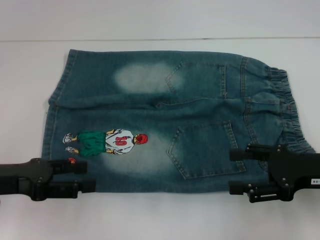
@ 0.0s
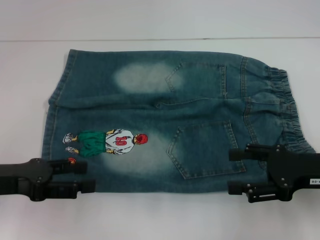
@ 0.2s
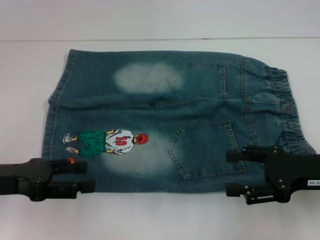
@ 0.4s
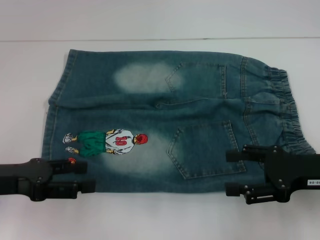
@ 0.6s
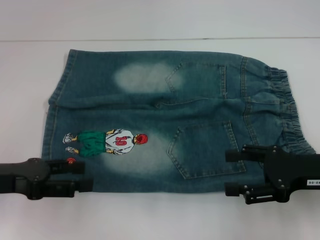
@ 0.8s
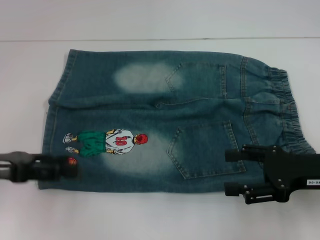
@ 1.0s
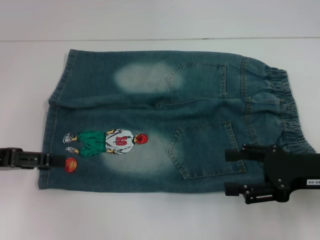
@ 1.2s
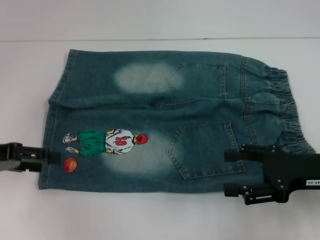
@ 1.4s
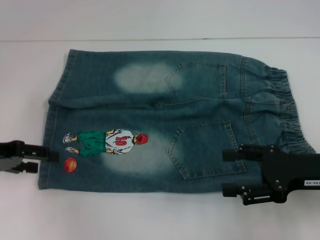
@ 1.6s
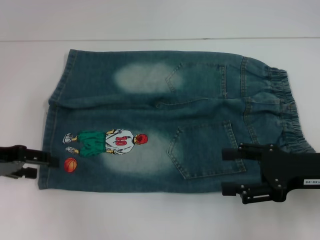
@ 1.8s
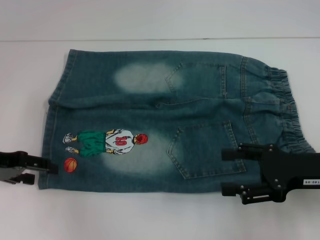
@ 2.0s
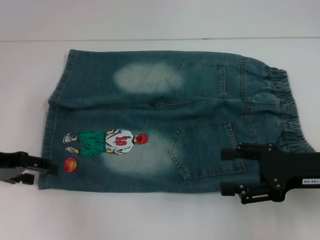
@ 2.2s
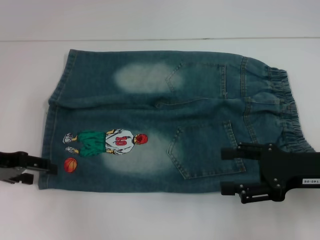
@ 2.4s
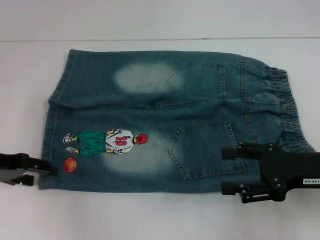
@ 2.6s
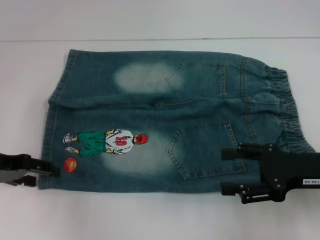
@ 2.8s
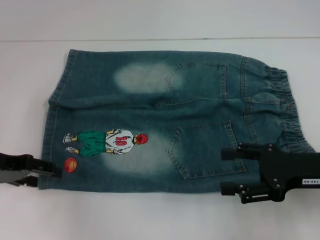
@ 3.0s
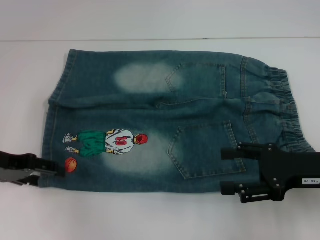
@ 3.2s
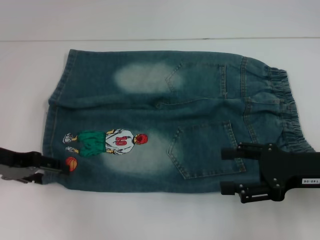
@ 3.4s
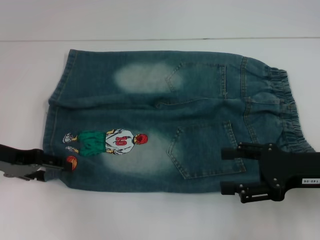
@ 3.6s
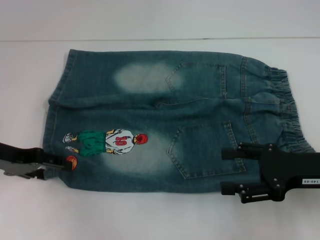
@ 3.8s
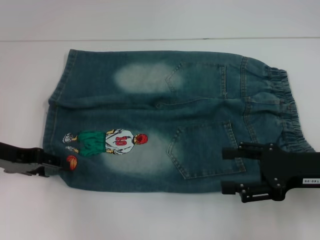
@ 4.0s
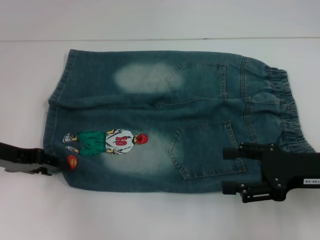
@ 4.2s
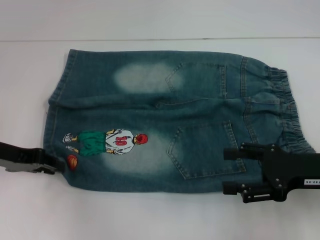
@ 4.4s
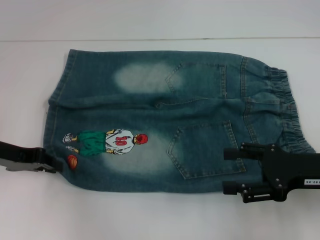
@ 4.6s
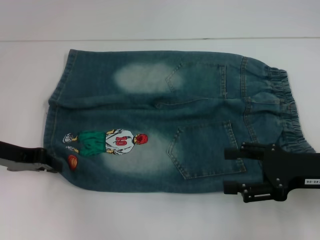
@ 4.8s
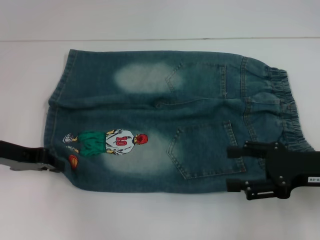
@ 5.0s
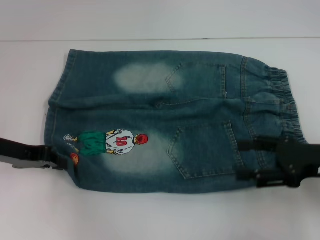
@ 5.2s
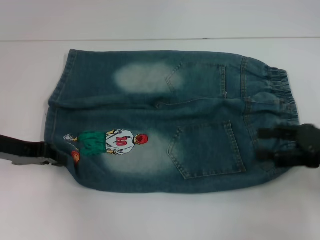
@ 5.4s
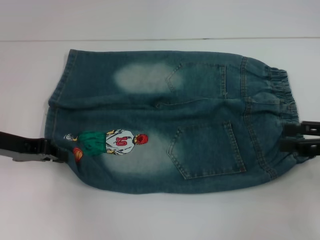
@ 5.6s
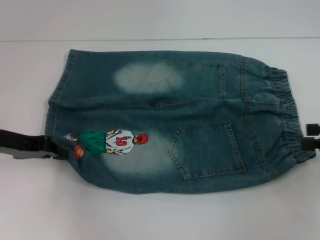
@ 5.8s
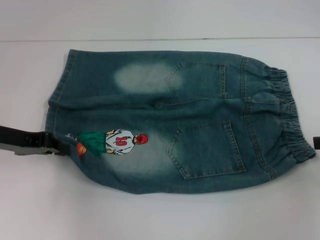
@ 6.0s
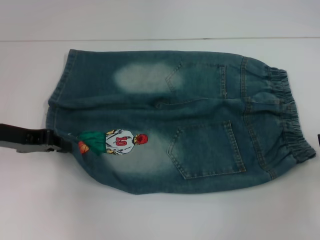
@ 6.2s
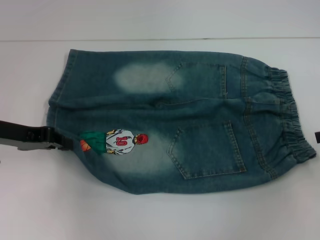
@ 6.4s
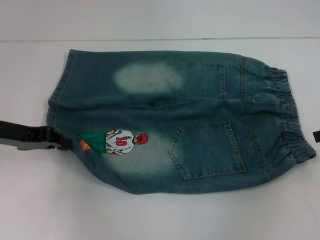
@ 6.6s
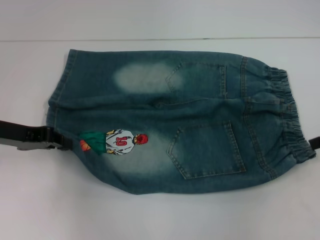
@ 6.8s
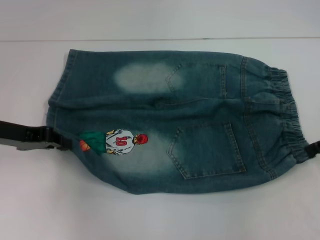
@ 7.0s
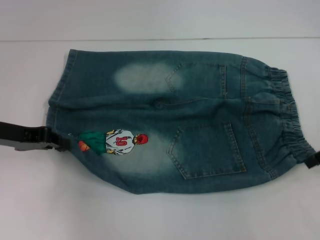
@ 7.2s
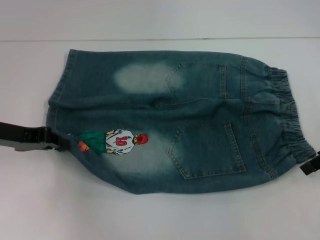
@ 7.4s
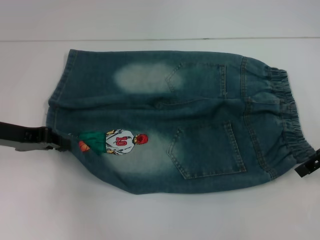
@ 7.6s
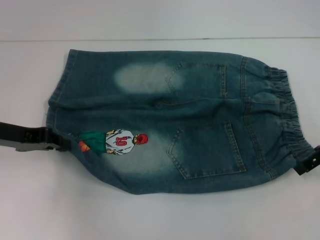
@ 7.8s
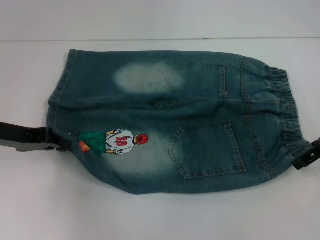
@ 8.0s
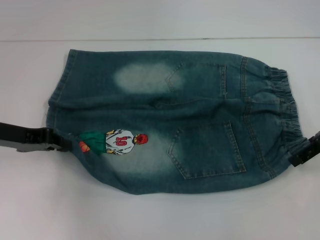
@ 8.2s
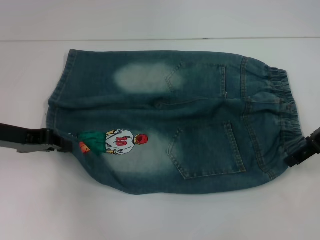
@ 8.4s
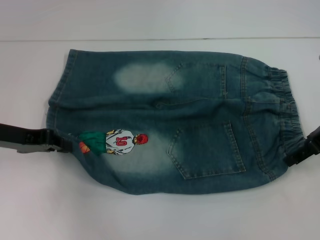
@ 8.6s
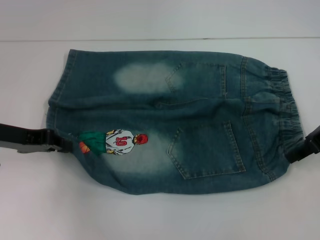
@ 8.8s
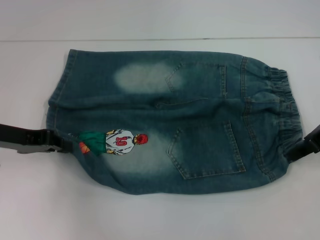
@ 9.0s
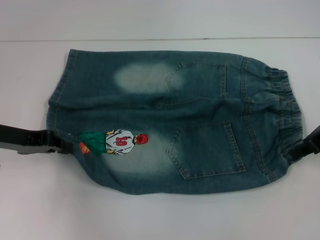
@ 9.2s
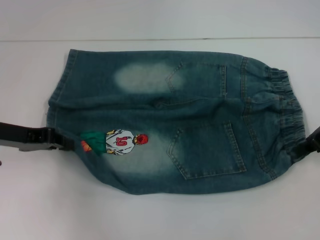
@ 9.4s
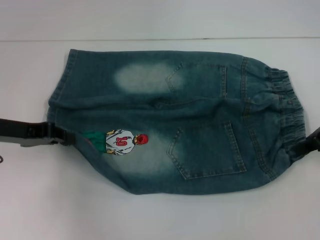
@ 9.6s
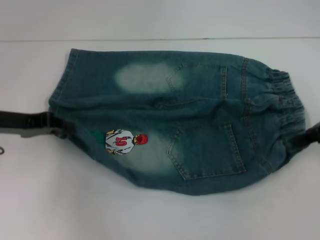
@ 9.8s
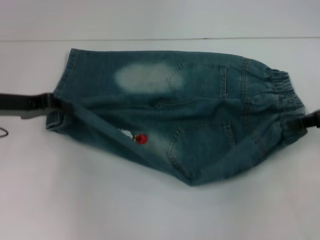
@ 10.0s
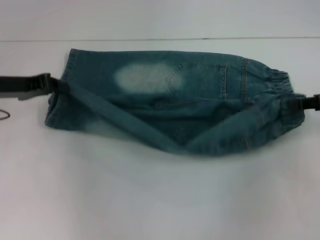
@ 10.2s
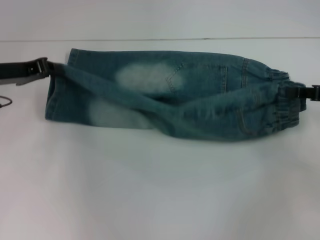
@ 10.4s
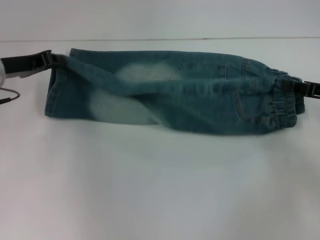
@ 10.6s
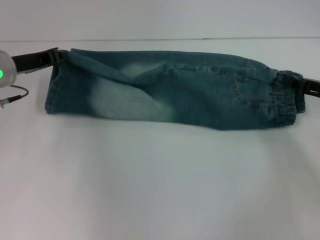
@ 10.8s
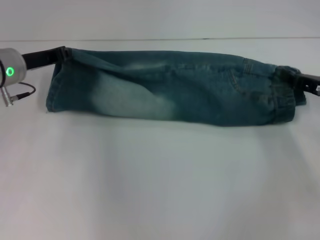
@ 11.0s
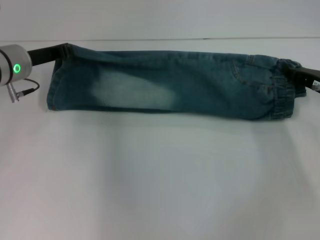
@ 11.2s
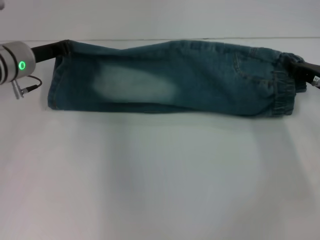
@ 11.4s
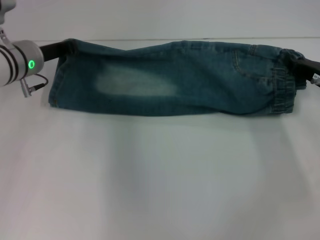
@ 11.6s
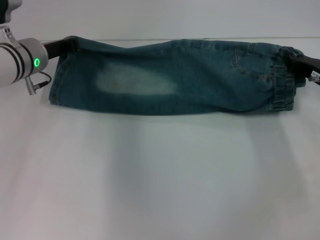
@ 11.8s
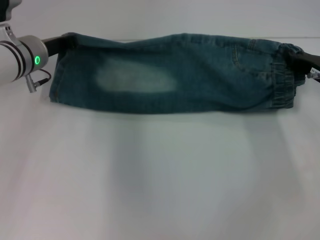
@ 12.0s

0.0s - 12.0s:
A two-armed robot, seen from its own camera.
Step, 0.0s - 4.8s: Grab the lower left pant leg with your left hand.
Step, 5.2s - 9.4s: Hold the lower right waistband with your right hand.
0.0s - 1.6s: The left gripper is displaced forward by about 5 cm.
1.6s - 4.4s: The grippers make only small movements.
4.4s - 6.0s: The left gripper closes up. The right gripper travels to the right and upward by about 15 cm.
6.0s - 7.6s: The right gripper moves to the left and forward, some 10 cm.
7.6s - 9.0s: The right gripper closes its fingers.
9.0s - 10.4s: The right gripper shifts about 5 cm to the right, and closes its fingers; the left gripper goes approximately 5 cm forward.
10.4s - 12.0s: The right gripper moves downward, some 5 cm; the left gripper travels to the right and forward by approximately 10 cm.

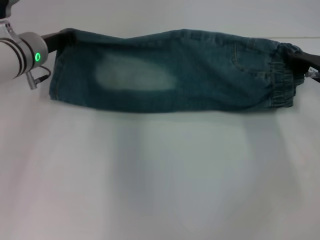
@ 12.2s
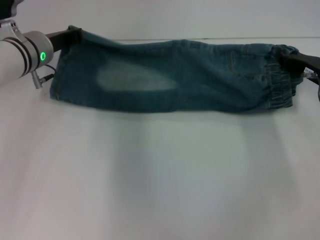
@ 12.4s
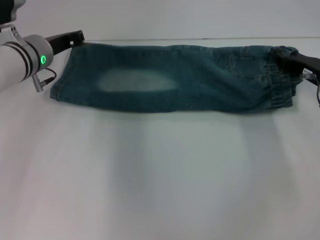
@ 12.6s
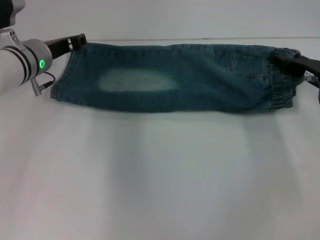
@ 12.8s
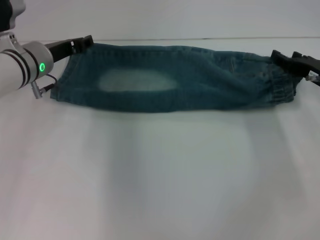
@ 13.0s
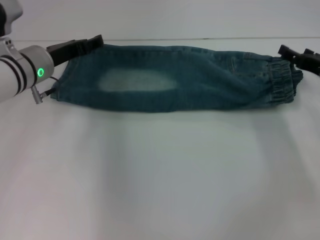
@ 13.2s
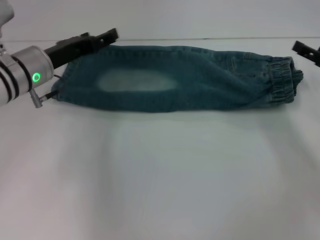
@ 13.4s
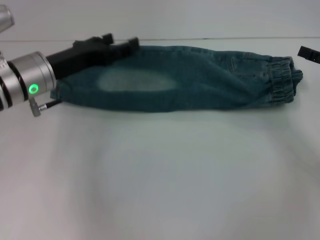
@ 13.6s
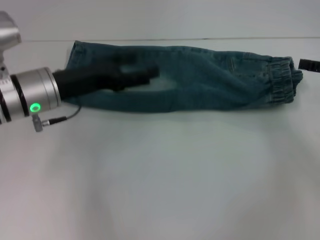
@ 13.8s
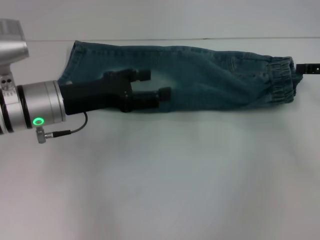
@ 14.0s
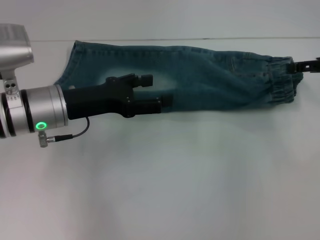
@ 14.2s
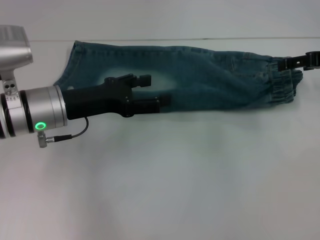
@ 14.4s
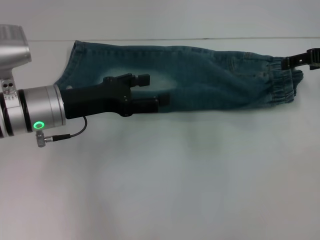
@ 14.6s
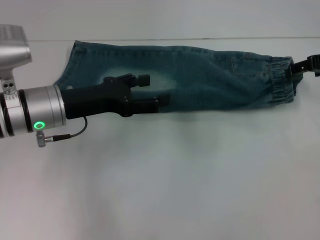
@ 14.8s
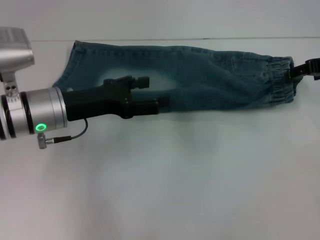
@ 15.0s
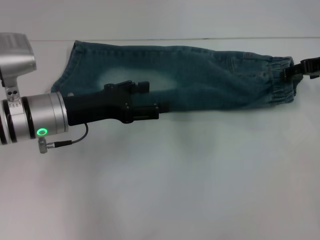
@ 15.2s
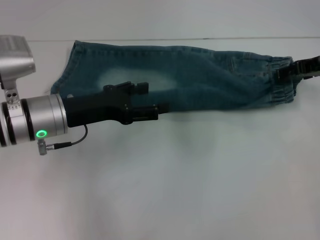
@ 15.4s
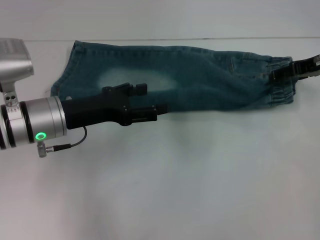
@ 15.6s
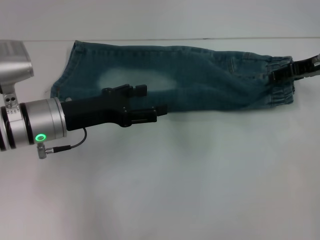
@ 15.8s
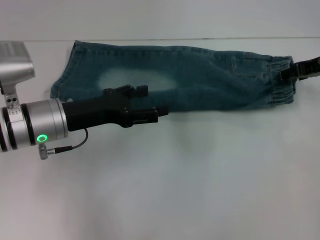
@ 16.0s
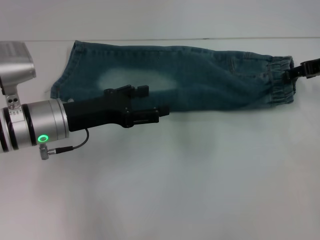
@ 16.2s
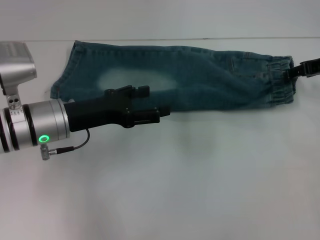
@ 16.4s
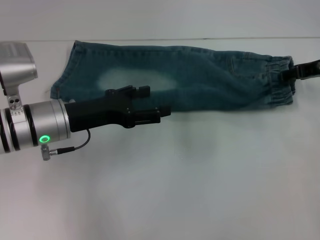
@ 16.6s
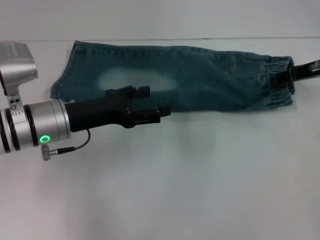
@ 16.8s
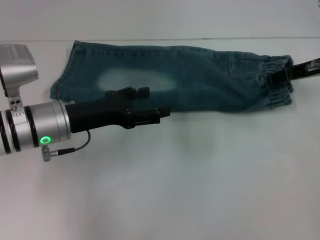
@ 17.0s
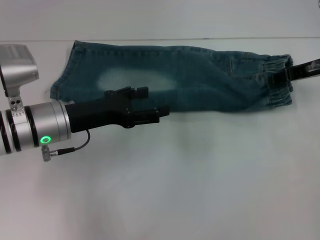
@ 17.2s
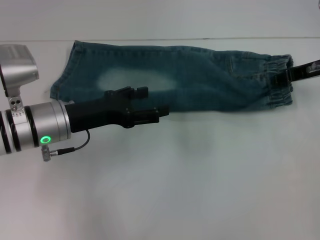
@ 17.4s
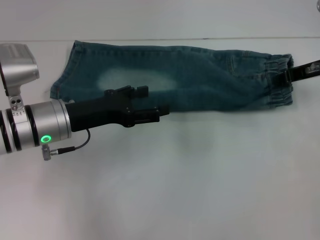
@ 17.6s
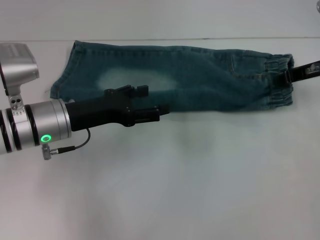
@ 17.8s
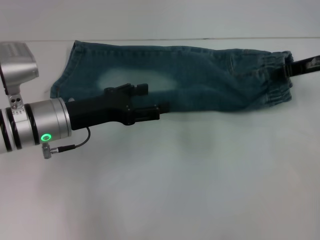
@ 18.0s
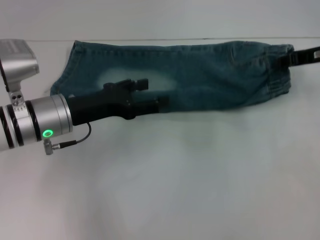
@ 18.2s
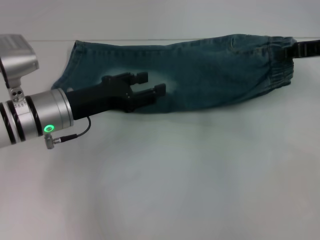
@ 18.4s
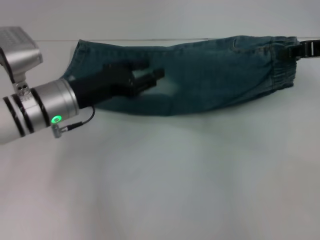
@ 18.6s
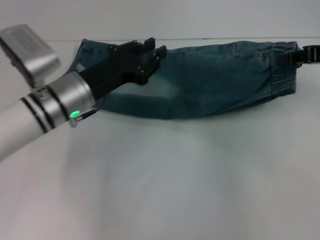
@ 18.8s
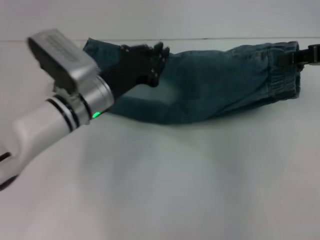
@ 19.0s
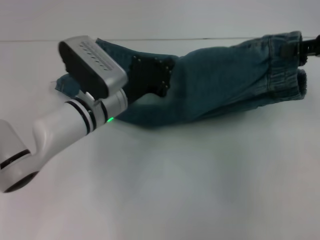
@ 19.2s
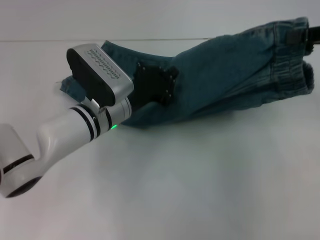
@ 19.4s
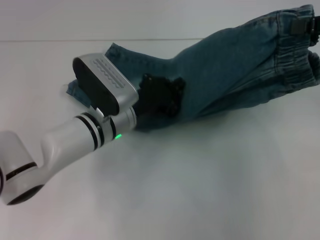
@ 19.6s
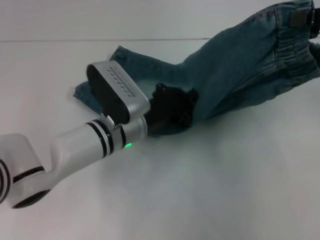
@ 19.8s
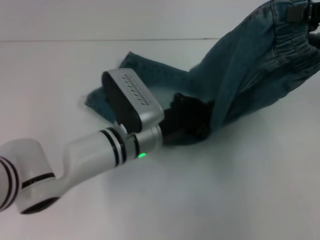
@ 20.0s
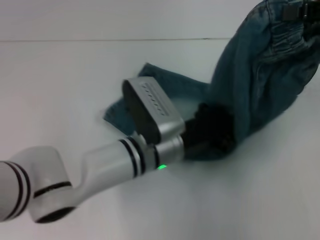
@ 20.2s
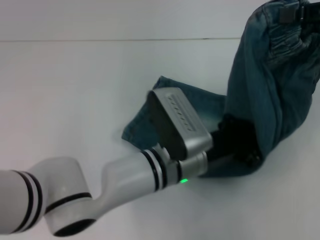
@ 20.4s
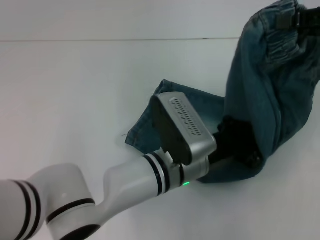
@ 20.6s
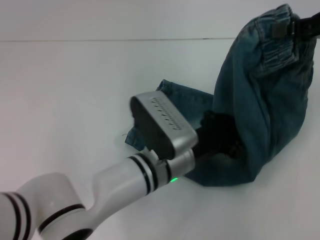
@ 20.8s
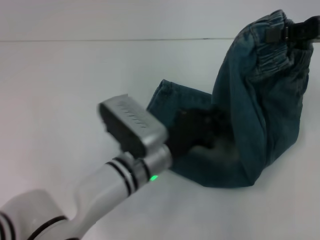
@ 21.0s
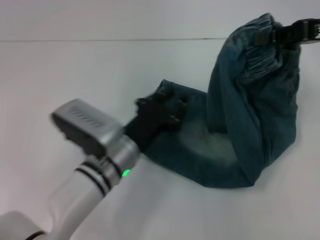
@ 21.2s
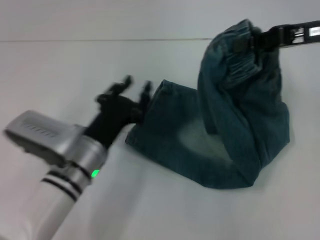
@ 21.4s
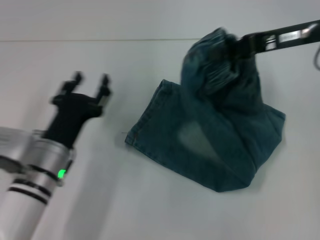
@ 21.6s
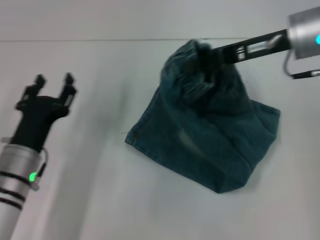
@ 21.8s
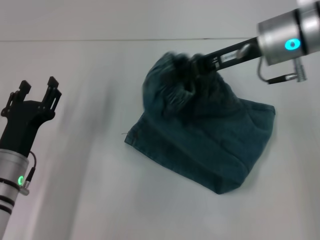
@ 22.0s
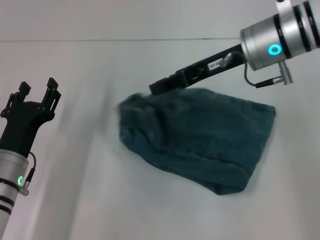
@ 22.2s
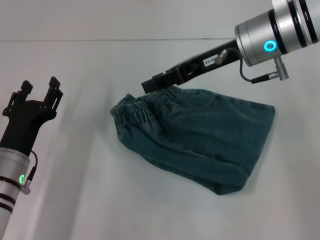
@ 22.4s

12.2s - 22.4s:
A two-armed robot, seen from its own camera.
Step, 13.2s - 18.0s: Grab the waistband with your right hand.
Step, 18.2s - 20.8s: Press the middle of the pants with your left hand.
12.2s - 13.6s: The right gripper shifts roughly 5 cm to the right, and opens up; the left gripper travels backward by some 5 cm, and opens its fingers.
13.6s - 15.2s: The right gripper moves forward, to the left and upward, some 10 cm.
15.2s - 16.6s: The grippers move only a little.
16.6s - 18.0s: The right gripper closes up.
18.0s - 19.4s: The left gripper shifts about 10 cm to the right, and closes; the right gripper moves upward and backward, approximately 10 cm.
19.4s - 21.0s: The left gripper is displaced backward and to the right by some 10 cm.
21.0s - 22.4s: Both grippers move to the left, about 15 cm. The left gripper opens up.
